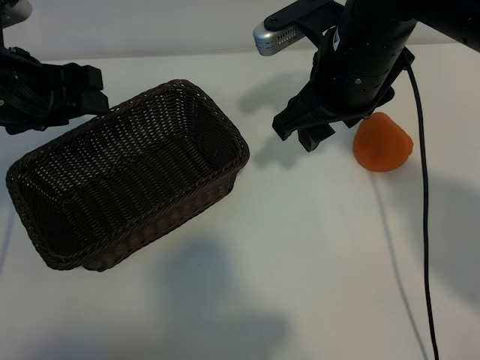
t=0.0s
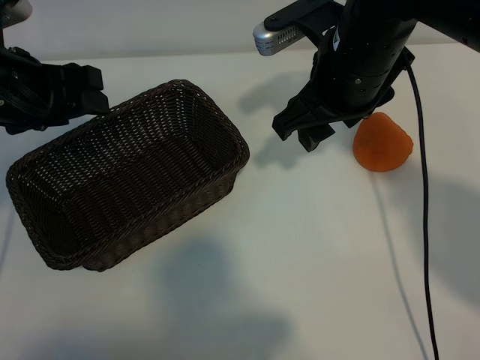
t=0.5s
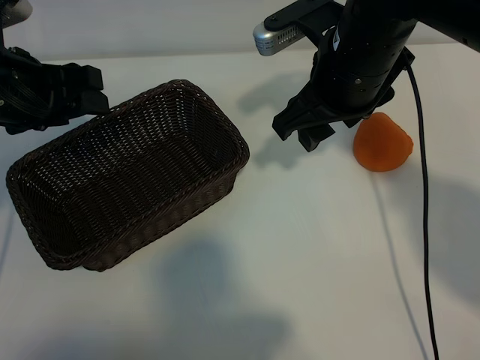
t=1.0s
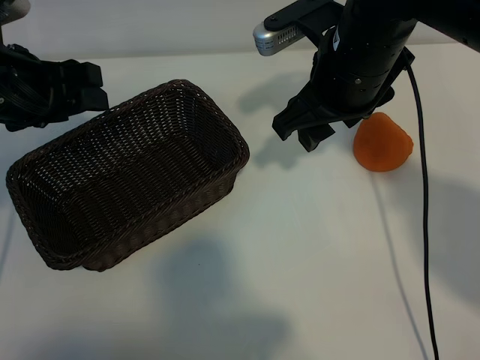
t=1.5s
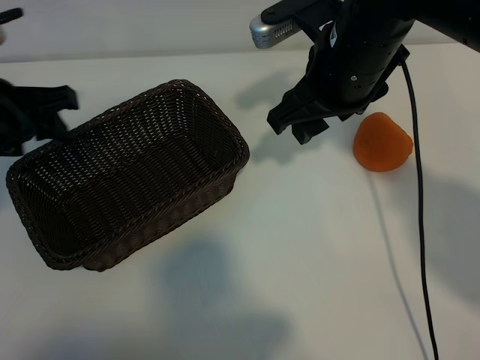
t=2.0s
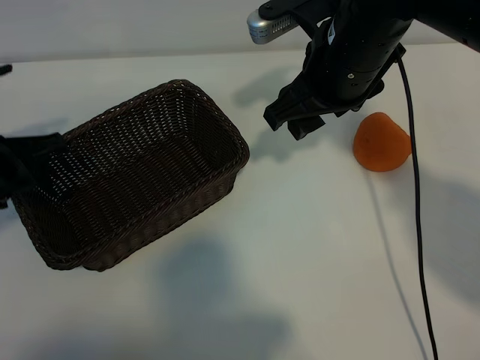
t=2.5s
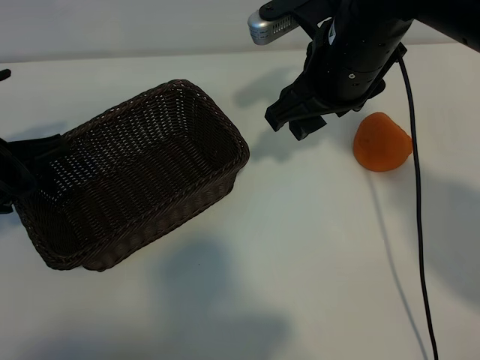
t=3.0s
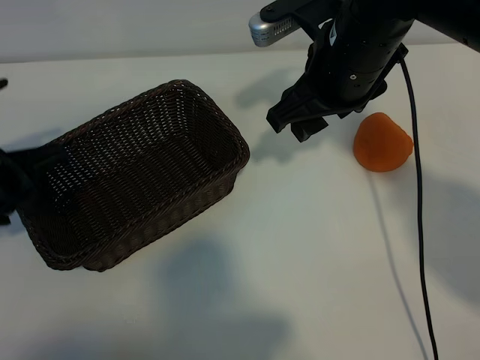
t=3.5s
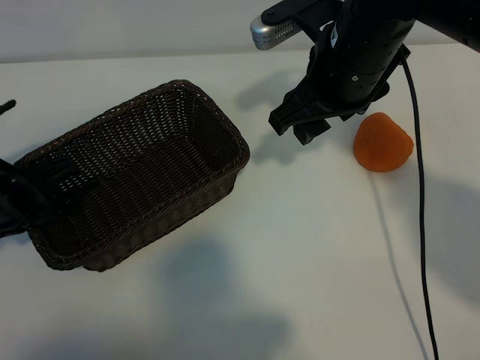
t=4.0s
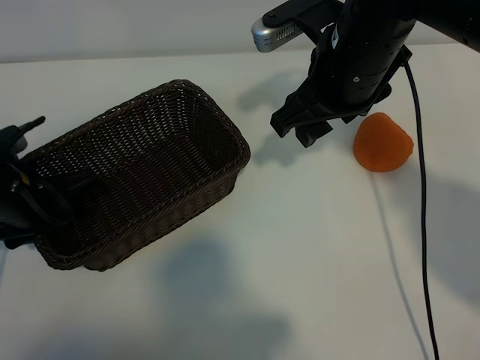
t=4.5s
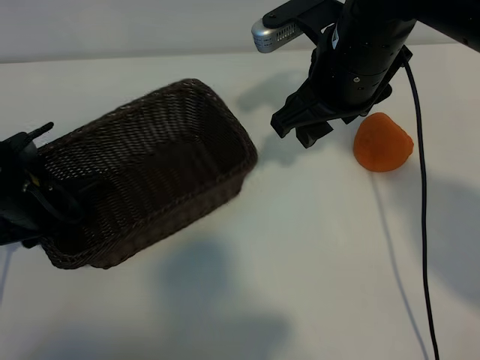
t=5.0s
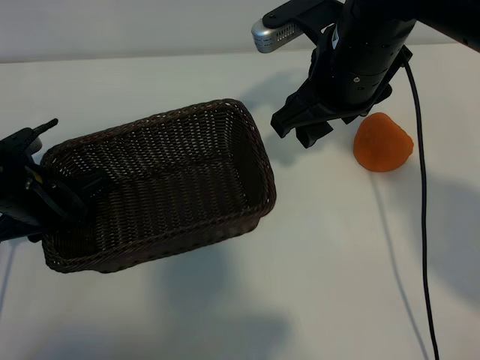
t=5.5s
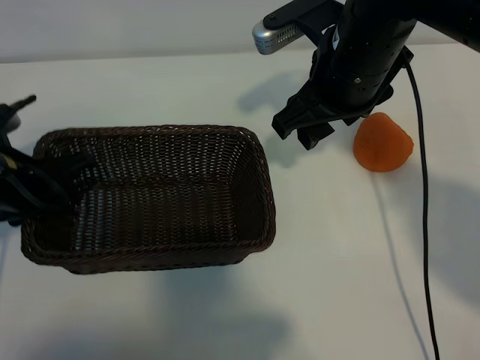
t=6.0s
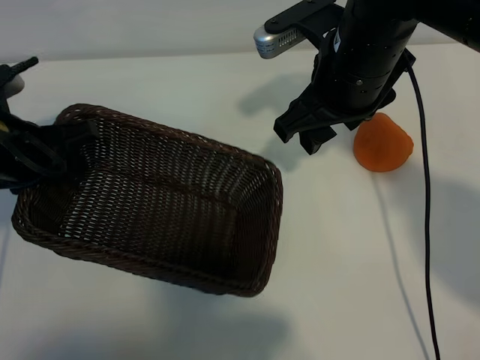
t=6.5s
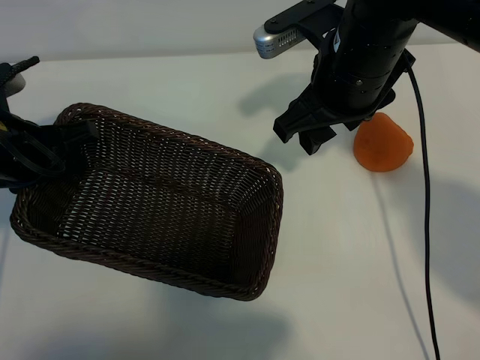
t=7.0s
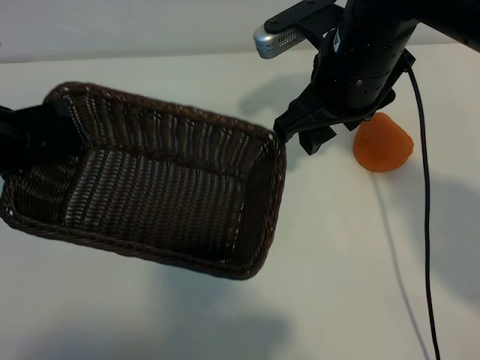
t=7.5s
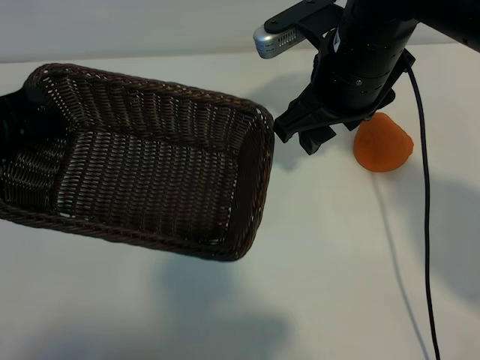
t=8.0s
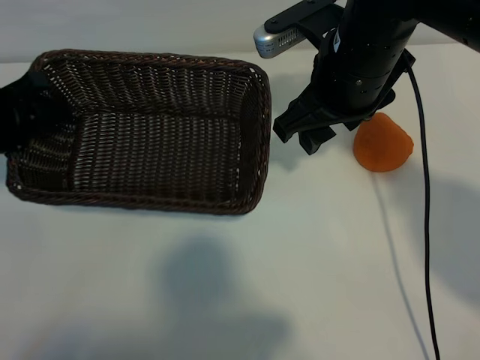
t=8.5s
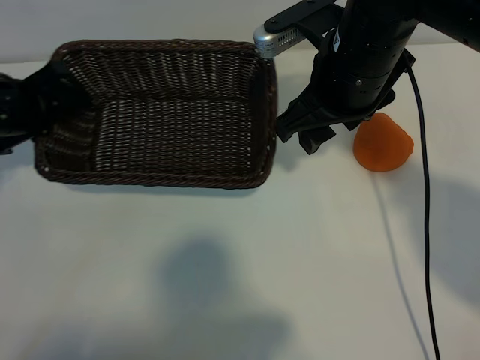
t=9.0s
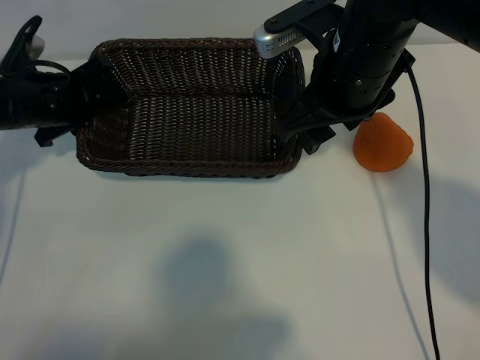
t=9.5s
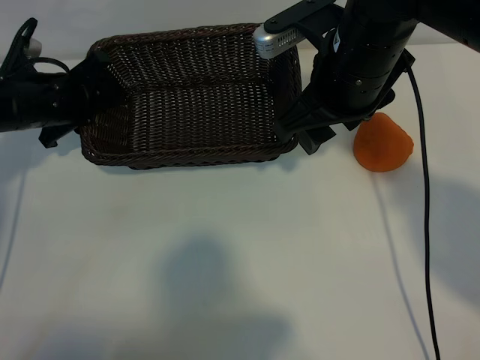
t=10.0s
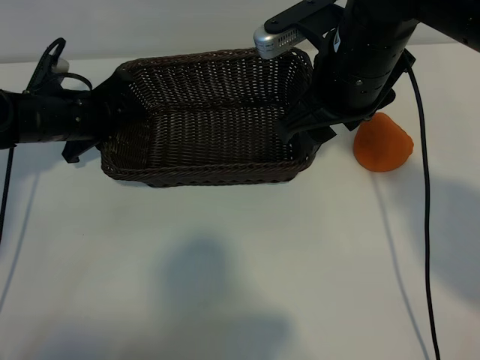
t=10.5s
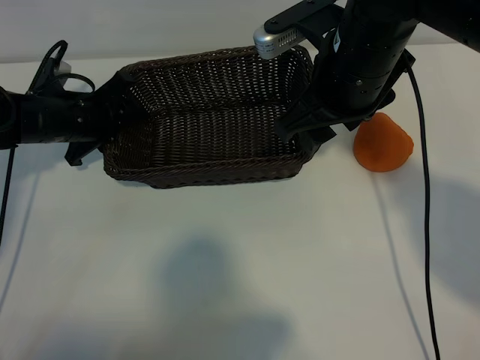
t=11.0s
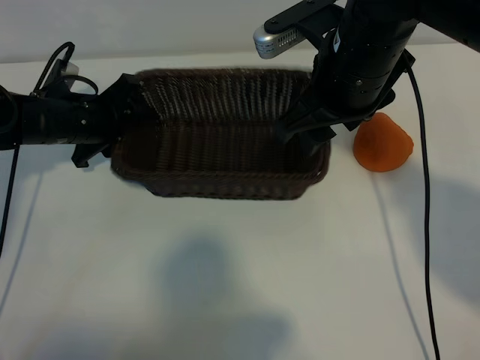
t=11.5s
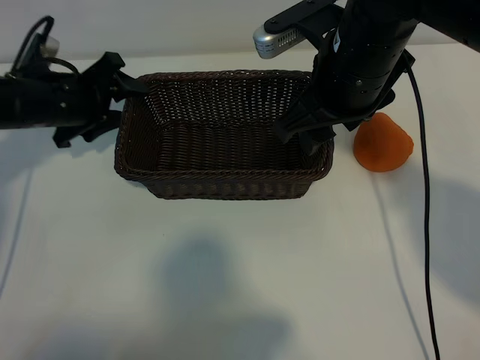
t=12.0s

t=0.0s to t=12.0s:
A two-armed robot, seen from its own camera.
Task of the whole recording: pick up the orange and put it into the basket.
Step, t=1.5s to t=5.0s: Grasp the basket with left gripper.
Step, t=5.5s to t=11.5s: Place the basket in the center of view with left gripper.

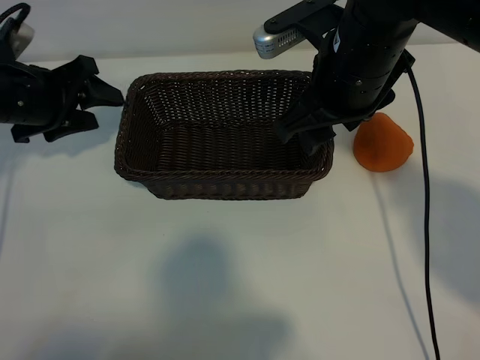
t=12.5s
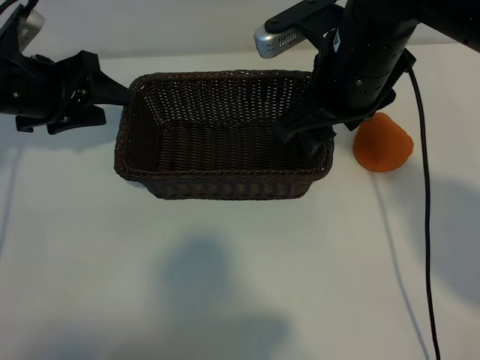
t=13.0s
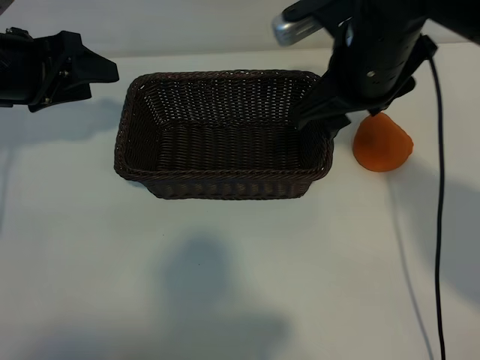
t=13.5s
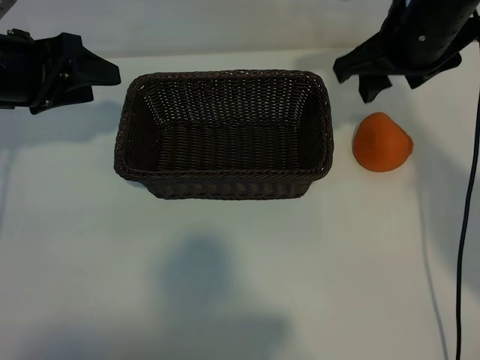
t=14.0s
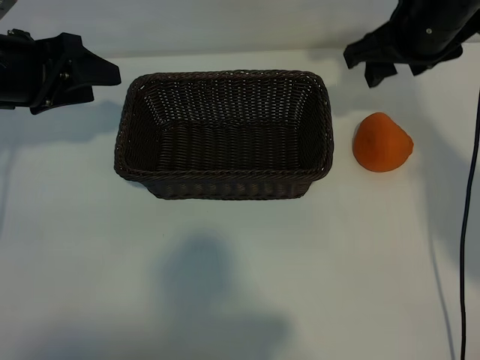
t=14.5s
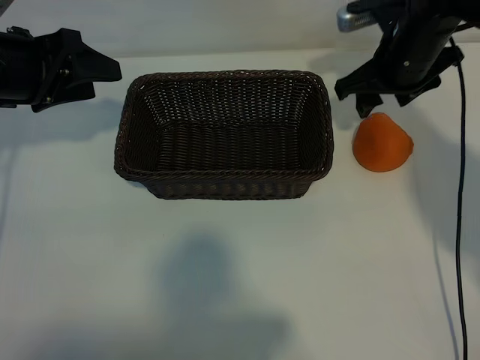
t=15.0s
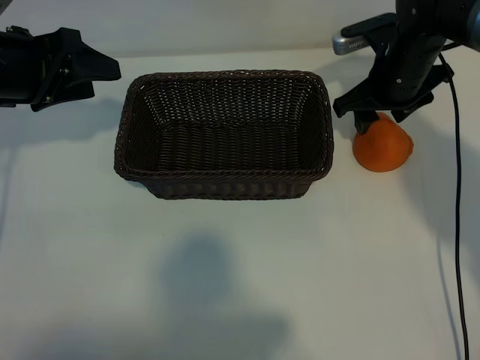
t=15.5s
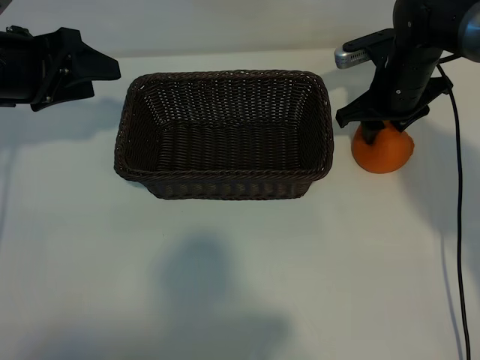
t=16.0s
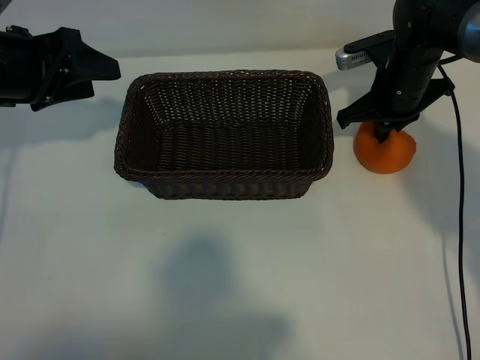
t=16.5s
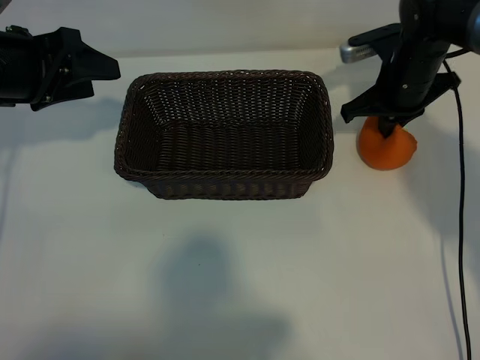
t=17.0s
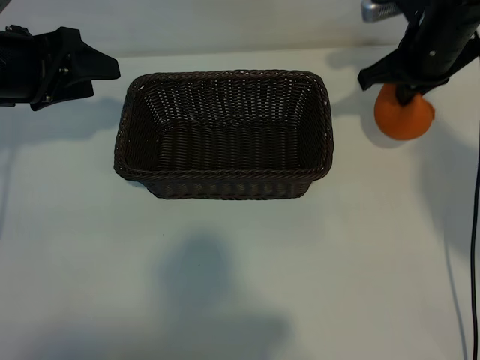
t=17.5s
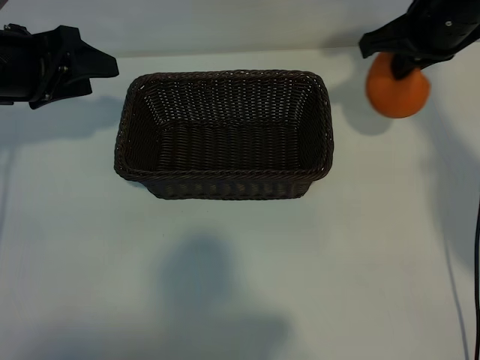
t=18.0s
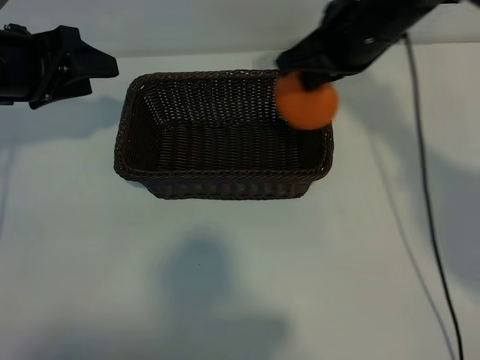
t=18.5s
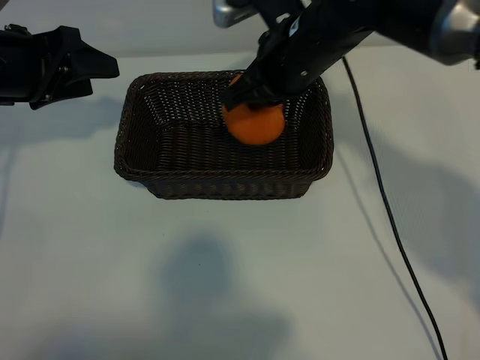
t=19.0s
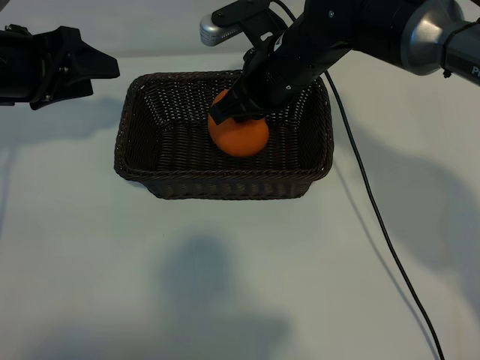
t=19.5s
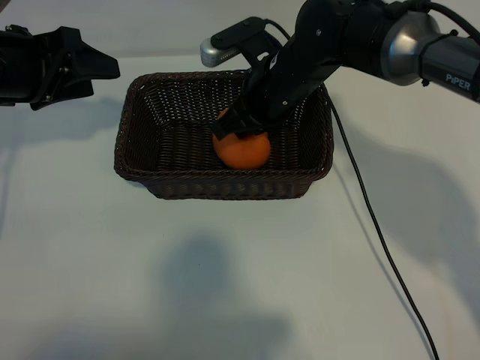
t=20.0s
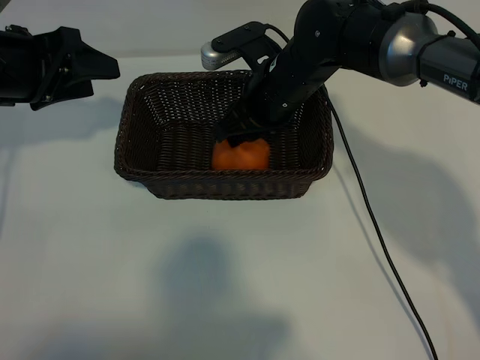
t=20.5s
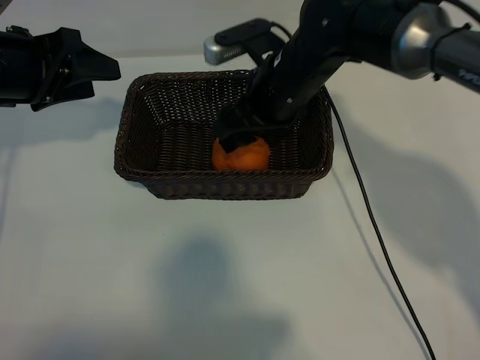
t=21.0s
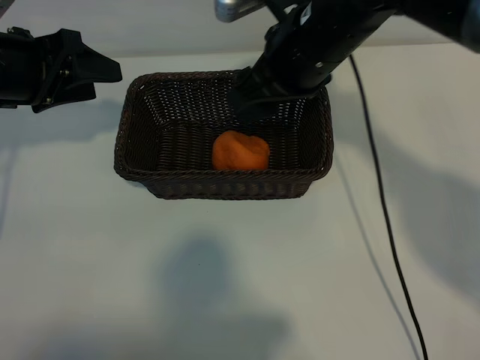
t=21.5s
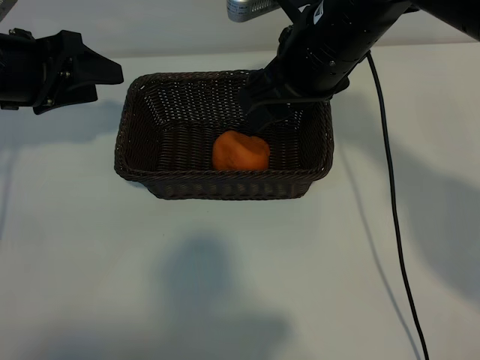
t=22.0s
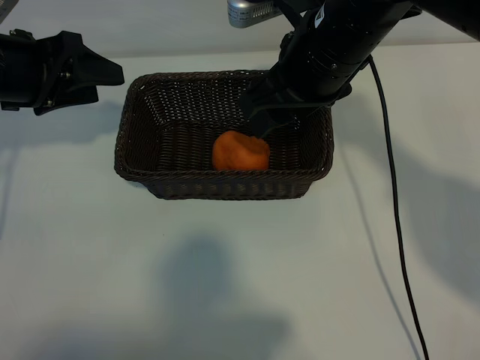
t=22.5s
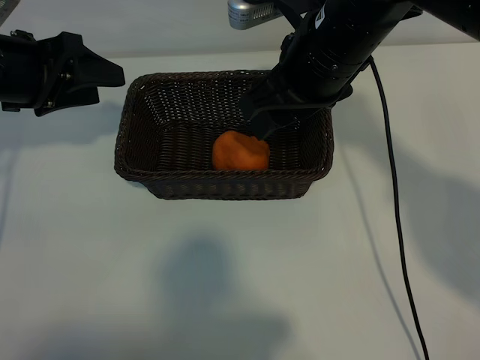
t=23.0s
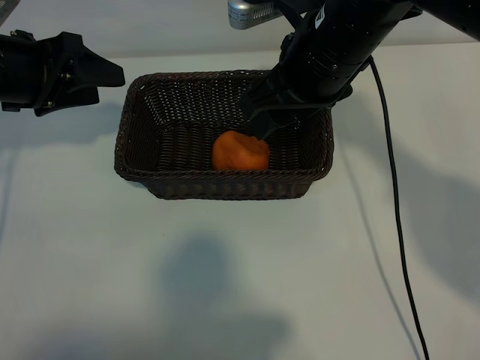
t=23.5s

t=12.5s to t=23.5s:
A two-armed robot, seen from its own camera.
Task of the whole recording: pick up the orange and put it into the basket.
Step, t=12.5s to t=16.0s: Grasp the orange with right gripper.
Step, t=16.5s to t=20.5s: Place the orange in the basket with right gripper.

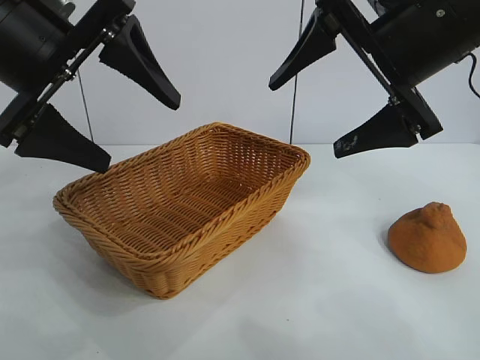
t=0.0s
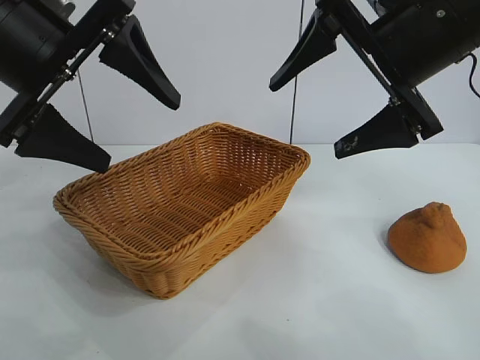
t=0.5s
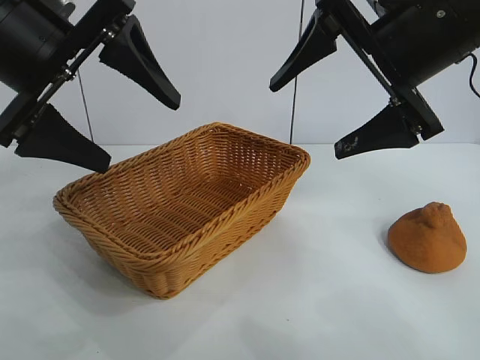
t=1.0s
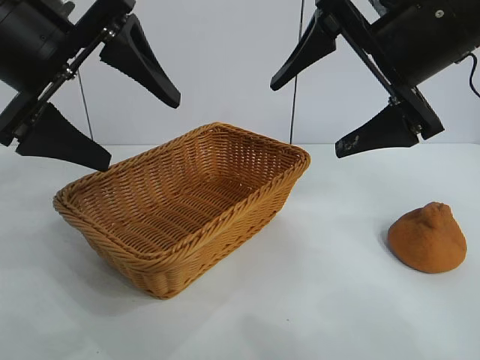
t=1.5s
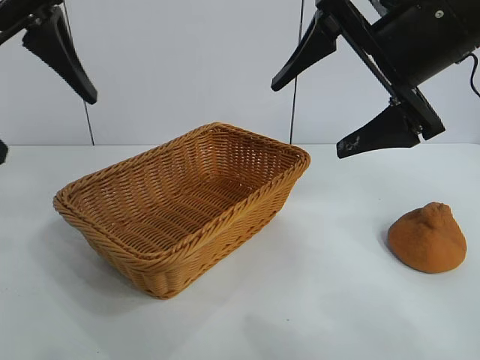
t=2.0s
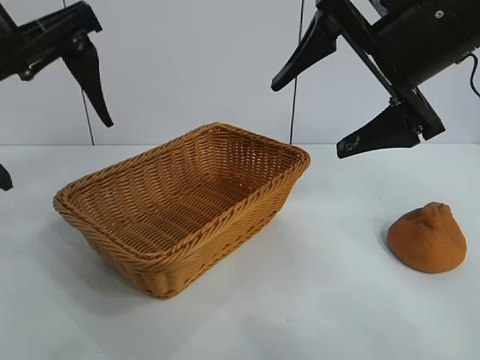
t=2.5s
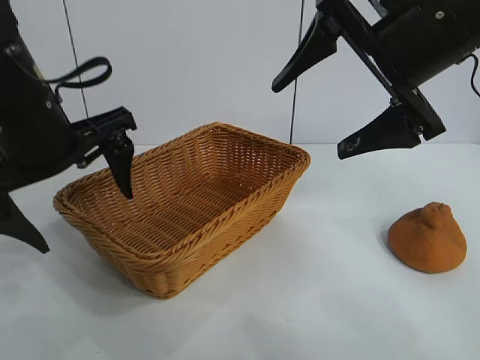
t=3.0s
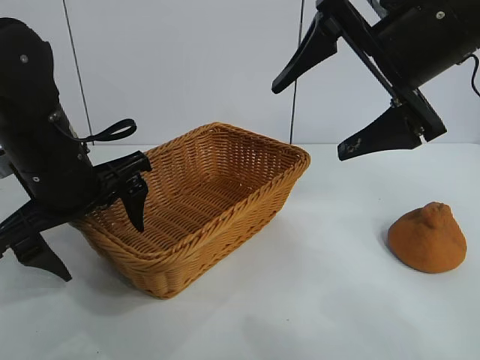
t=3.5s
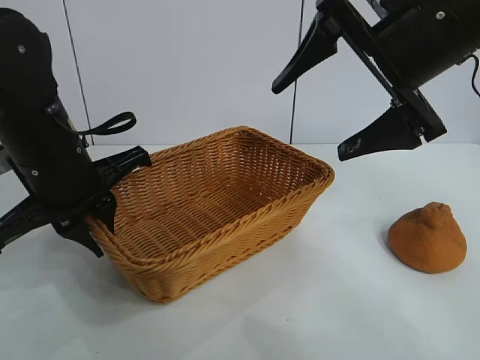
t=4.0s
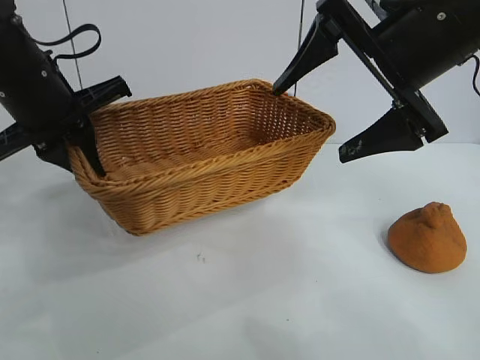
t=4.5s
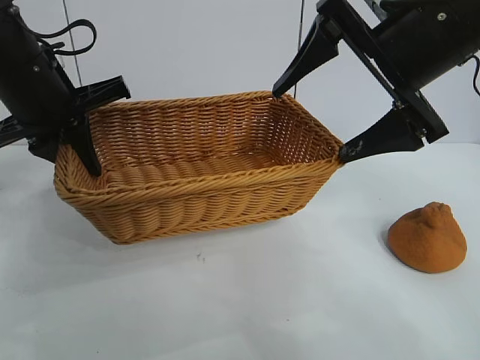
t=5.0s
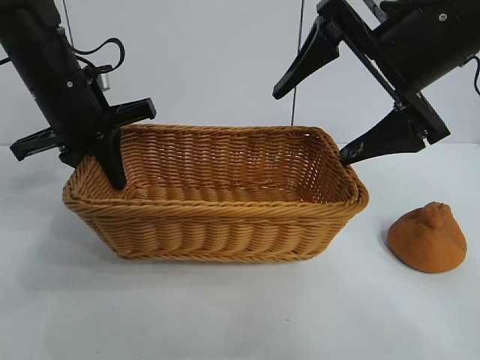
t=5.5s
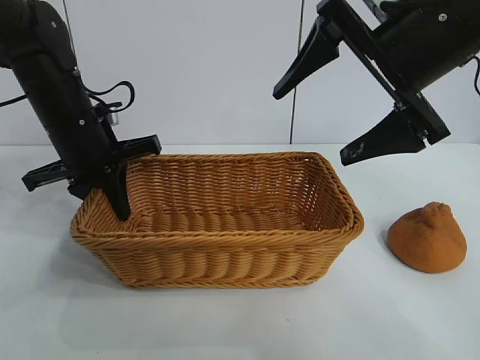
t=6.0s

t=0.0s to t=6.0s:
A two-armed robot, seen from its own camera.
Task of the whole recording: pick up the orange and put it into the basket.
Step, t=1.0s to t=4.0s: Grasp the basket with left gripper.
